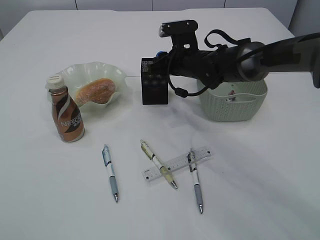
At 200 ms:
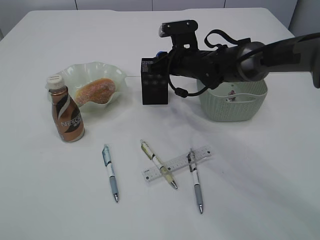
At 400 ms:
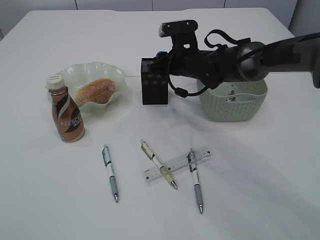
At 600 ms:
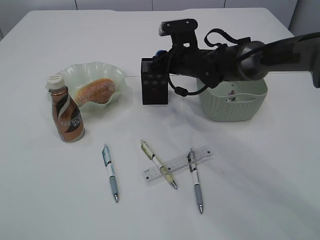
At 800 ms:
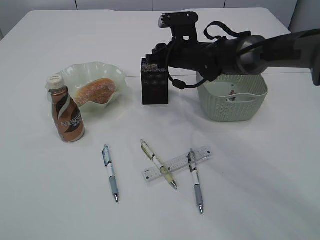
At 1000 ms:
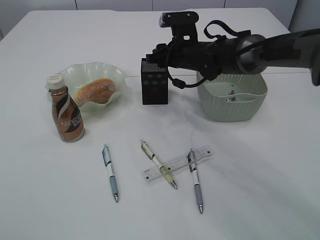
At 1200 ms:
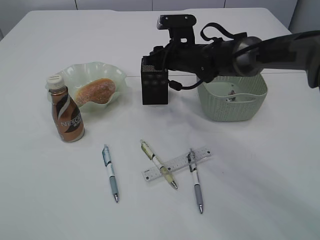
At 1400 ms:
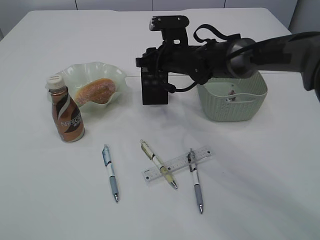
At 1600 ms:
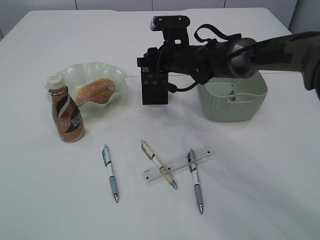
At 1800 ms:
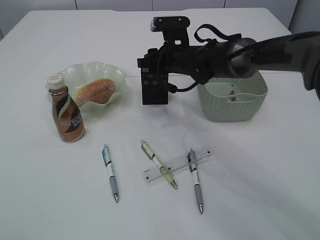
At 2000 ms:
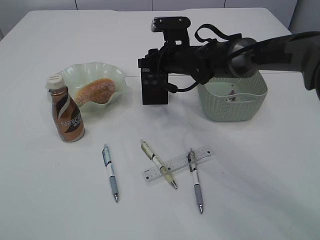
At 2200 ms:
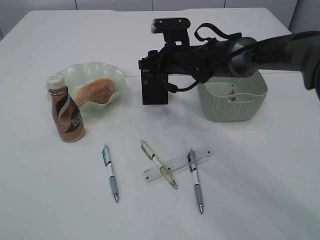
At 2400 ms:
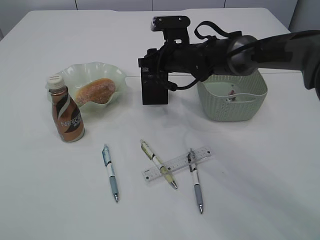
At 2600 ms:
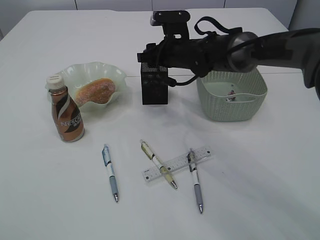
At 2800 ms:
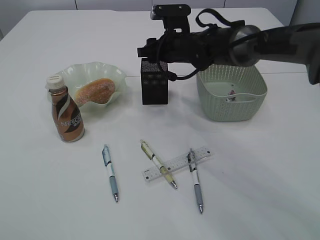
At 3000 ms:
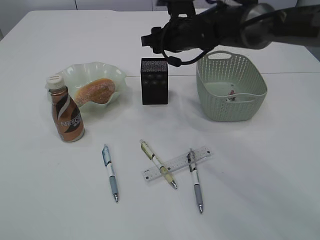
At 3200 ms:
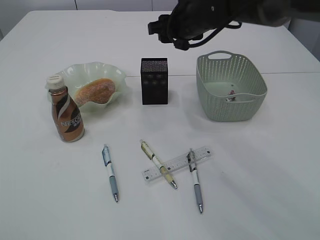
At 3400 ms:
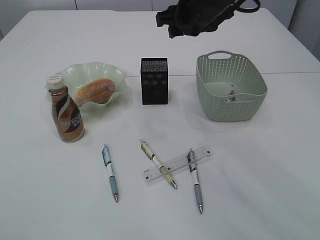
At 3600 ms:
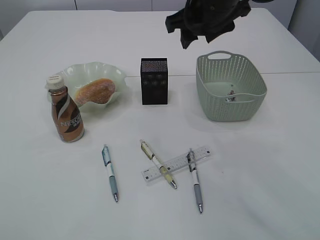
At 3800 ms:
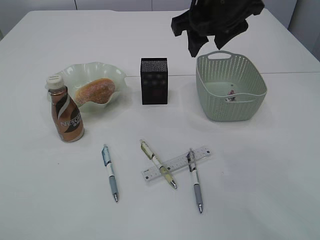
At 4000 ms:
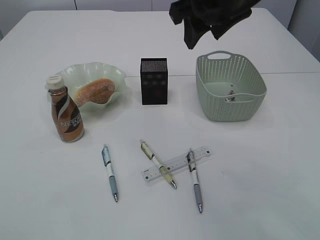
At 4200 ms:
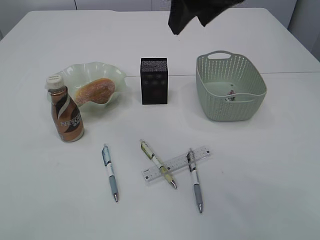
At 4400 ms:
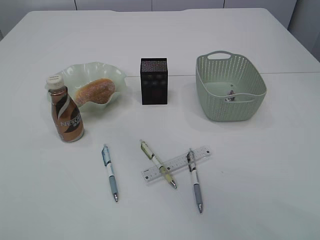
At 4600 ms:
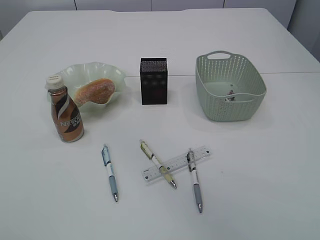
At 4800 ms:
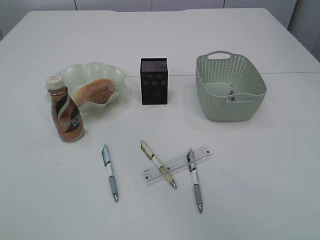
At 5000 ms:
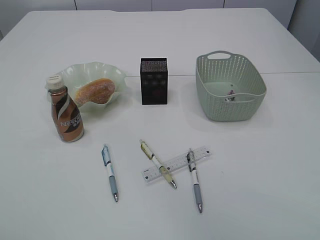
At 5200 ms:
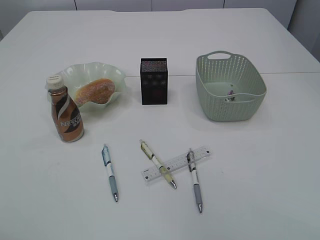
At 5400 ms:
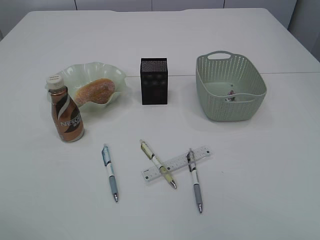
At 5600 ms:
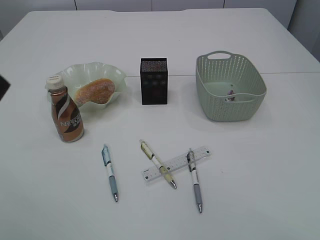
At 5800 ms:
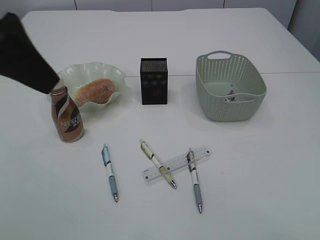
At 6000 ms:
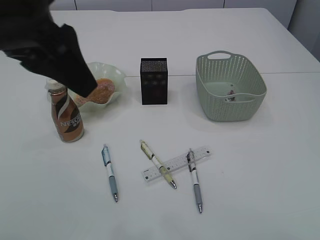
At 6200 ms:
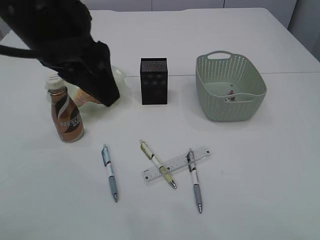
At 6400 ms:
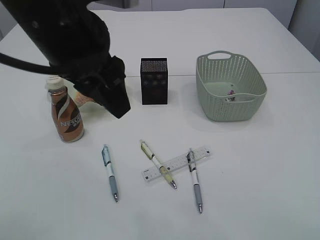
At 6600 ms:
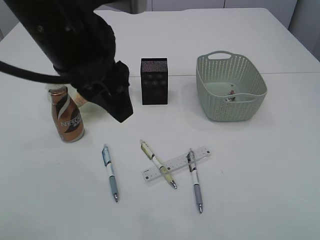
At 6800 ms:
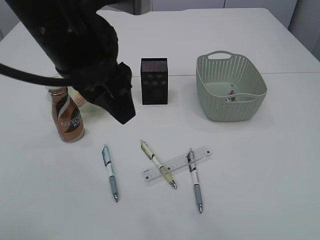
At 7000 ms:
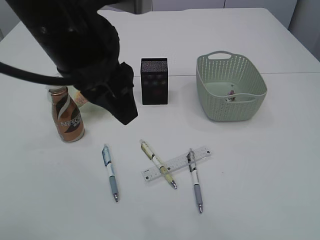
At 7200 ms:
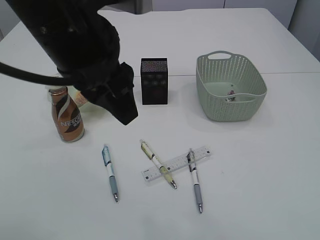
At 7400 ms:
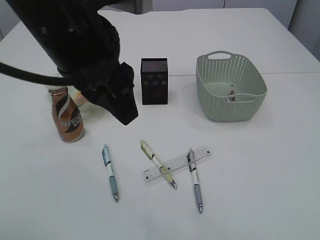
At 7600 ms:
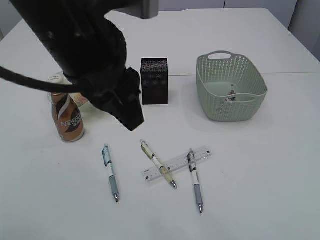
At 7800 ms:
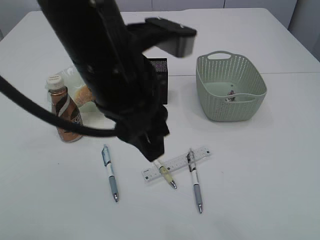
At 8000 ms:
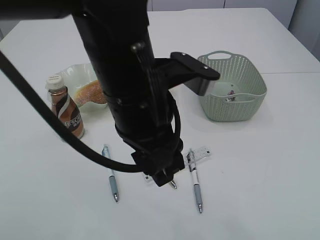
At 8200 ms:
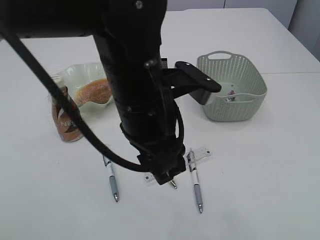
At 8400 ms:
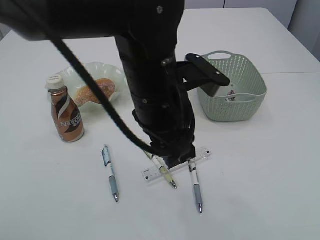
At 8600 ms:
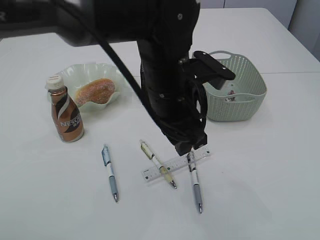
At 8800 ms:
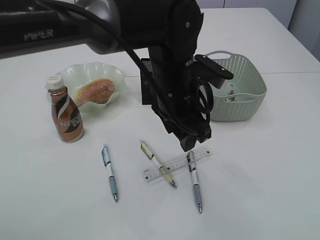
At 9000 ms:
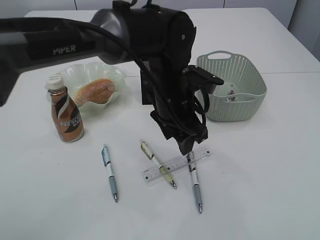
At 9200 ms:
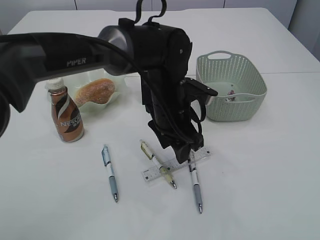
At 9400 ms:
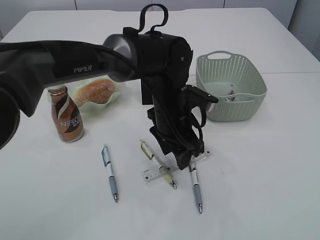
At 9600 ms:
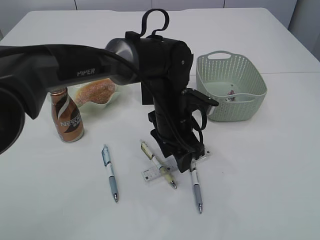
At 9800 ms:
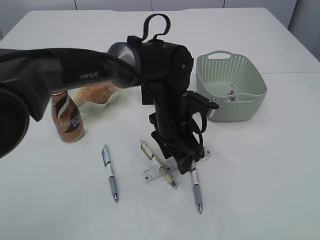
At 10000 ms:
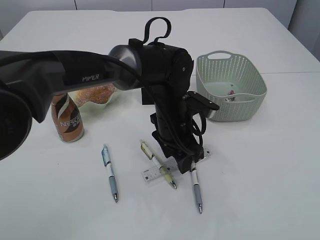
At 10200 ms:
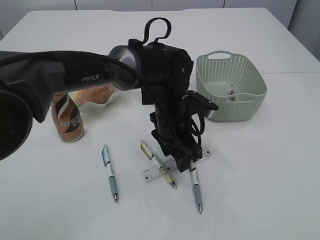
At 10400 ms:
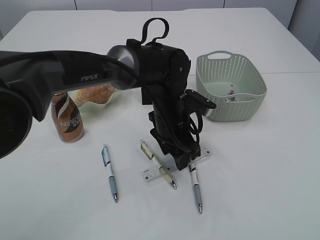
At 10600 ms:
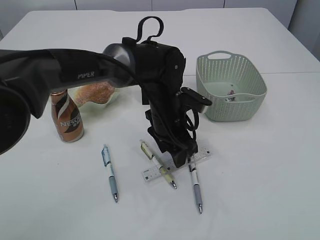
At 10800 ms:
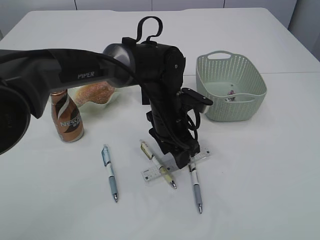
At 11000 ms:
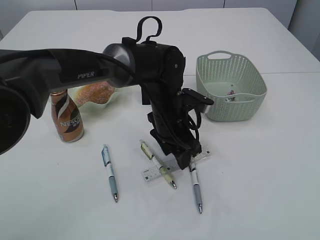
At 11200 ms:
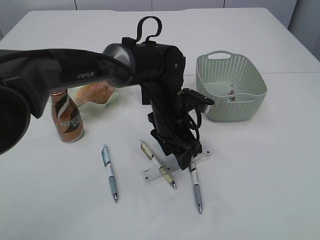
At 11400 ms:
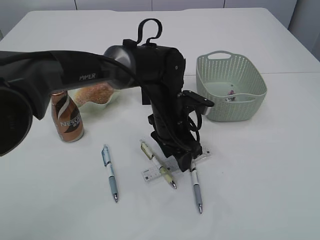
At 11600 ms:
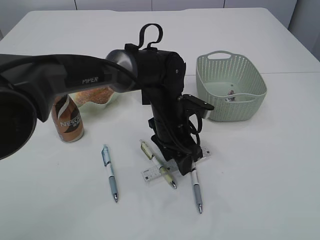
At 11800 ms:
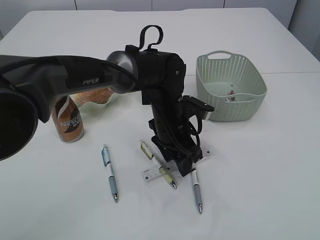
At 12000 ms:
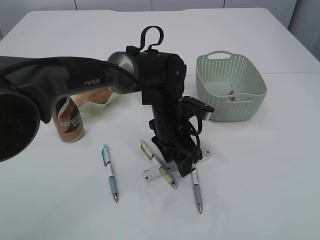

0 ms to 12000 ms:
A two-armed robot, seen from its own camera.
Step, 0 ms to 3200 ms: Place the blue pencil sharpener into the pen holder.
0 ms to 1600 ms: The grippers make only small movements.
1600 ms to 3000 ms: The right gripper heads upward, covering roughly 5 cm.
3000 ms to 4400 ms: The right gripper heads upward and backward, covering some 30 cm.
4400 ms to 6000 ms: The left gripper goes roughly 15 cm to the right and forward.
6000 ms to 7600 ms: The right gripper goes about 10 cm backward and to the right. The left gripper goes roughly 5 cm to the right.
7600 ms to 9000 ms: The left gripper goes about 20 cm downward, to the right and forward.
9000 ms to 10400 ms: The left gripper moves downward, about 5 cm.
10400 ms to 12000 ms: There are only small adjustments of the grippers.

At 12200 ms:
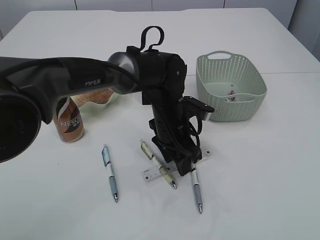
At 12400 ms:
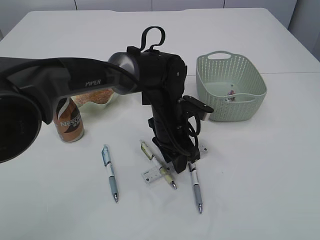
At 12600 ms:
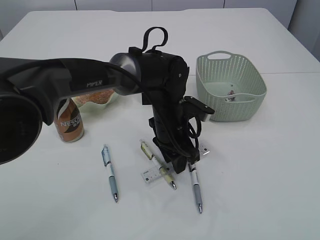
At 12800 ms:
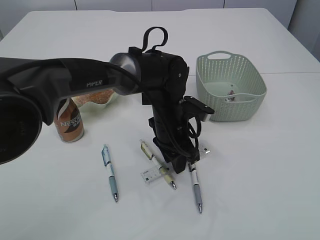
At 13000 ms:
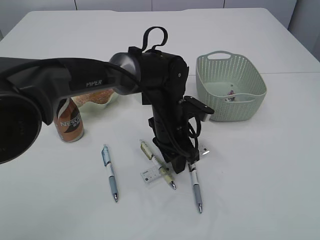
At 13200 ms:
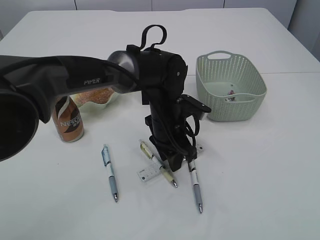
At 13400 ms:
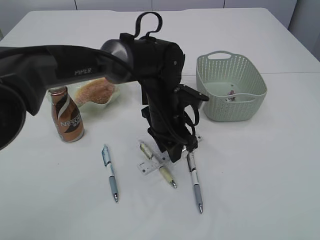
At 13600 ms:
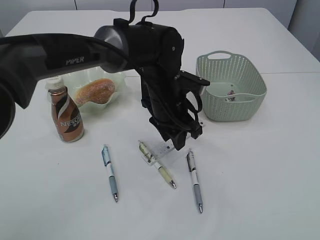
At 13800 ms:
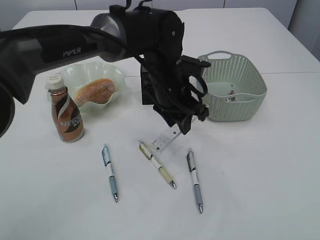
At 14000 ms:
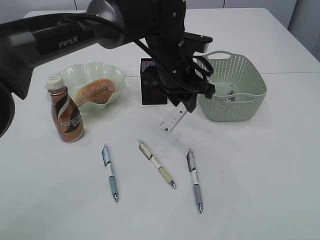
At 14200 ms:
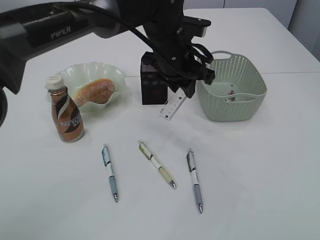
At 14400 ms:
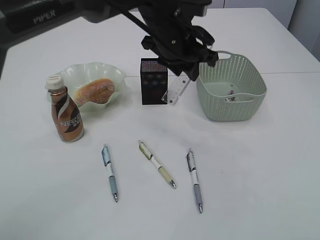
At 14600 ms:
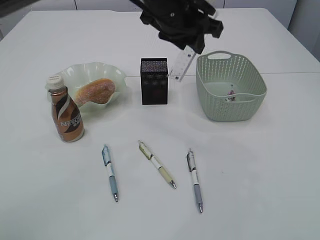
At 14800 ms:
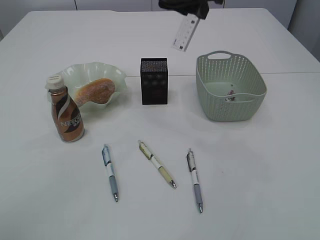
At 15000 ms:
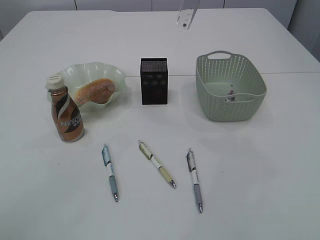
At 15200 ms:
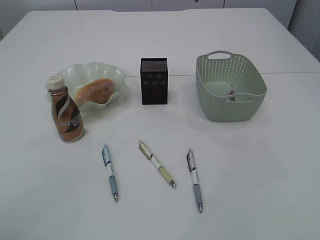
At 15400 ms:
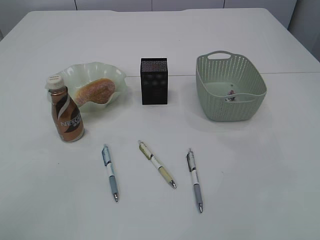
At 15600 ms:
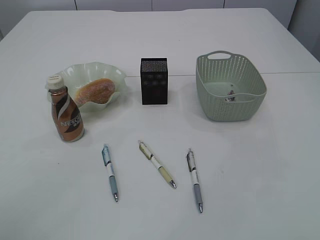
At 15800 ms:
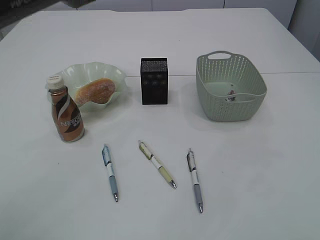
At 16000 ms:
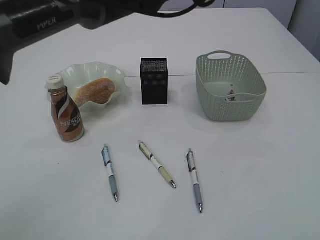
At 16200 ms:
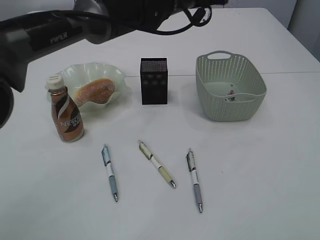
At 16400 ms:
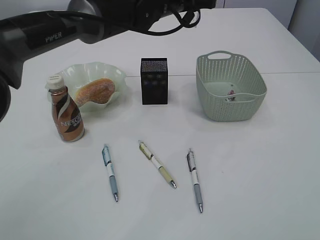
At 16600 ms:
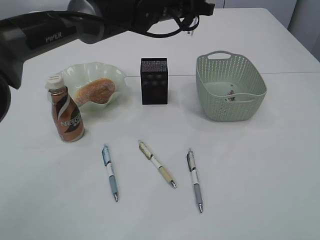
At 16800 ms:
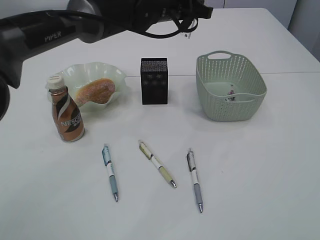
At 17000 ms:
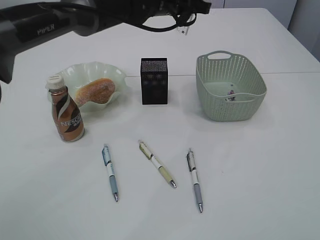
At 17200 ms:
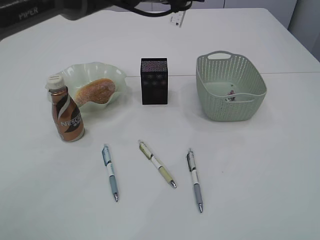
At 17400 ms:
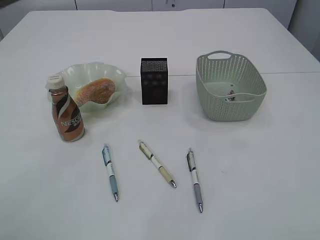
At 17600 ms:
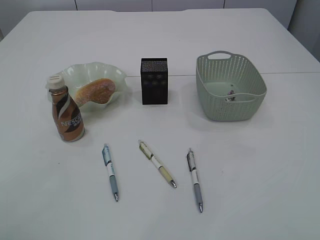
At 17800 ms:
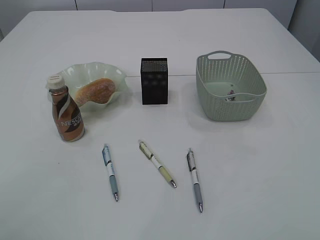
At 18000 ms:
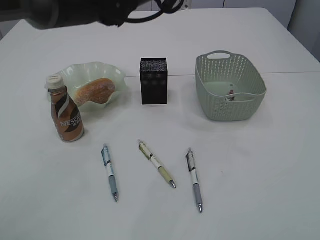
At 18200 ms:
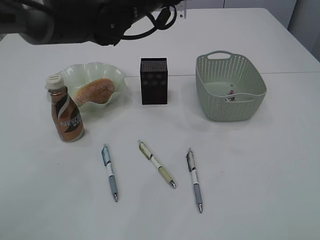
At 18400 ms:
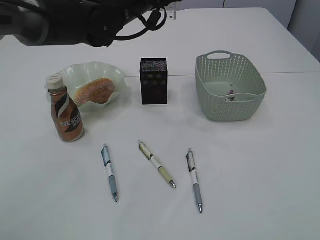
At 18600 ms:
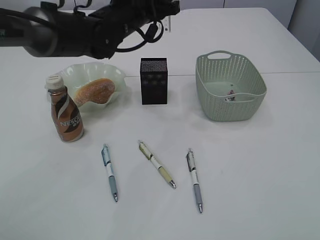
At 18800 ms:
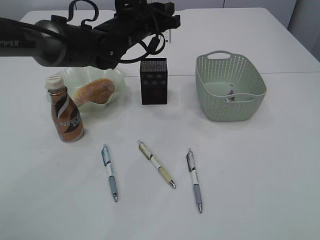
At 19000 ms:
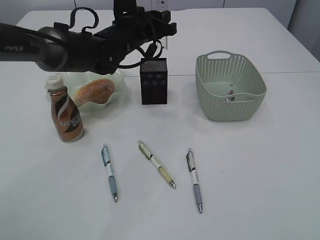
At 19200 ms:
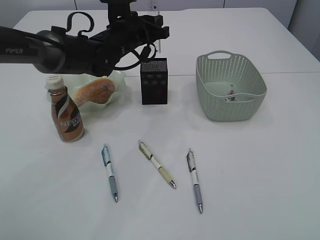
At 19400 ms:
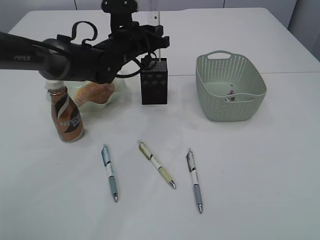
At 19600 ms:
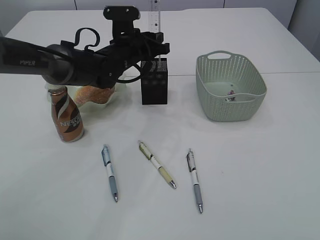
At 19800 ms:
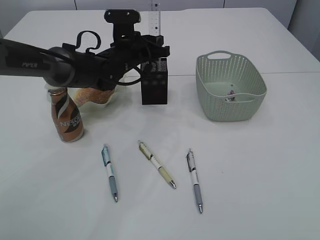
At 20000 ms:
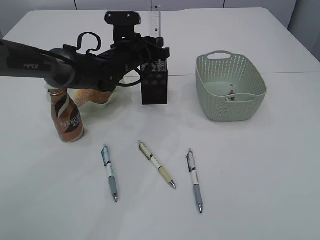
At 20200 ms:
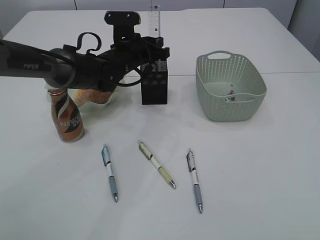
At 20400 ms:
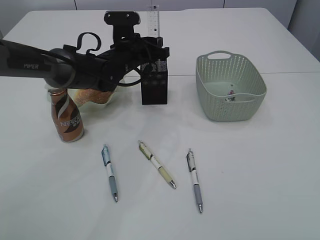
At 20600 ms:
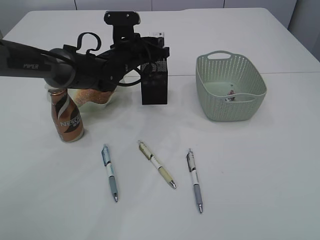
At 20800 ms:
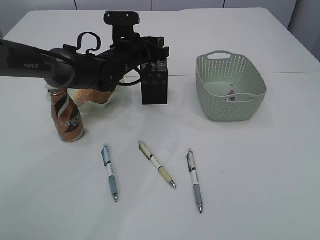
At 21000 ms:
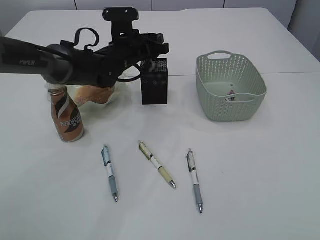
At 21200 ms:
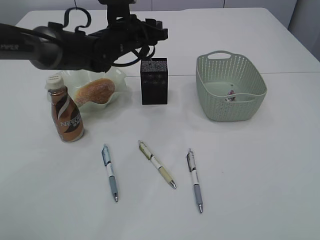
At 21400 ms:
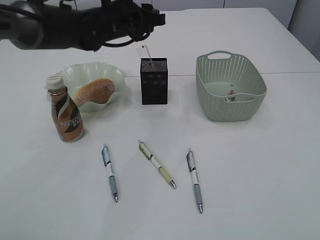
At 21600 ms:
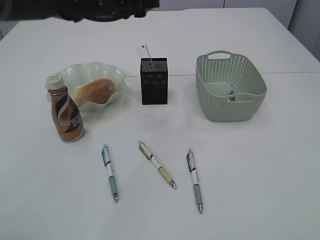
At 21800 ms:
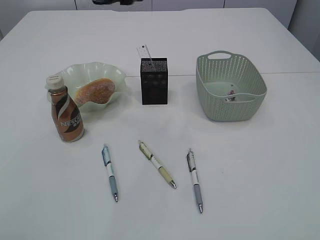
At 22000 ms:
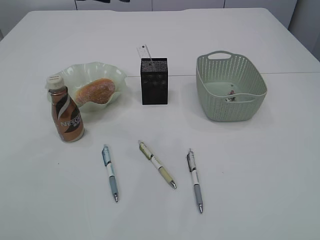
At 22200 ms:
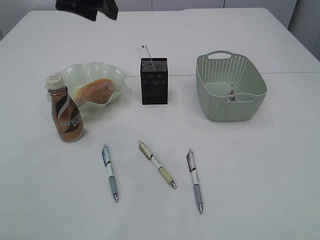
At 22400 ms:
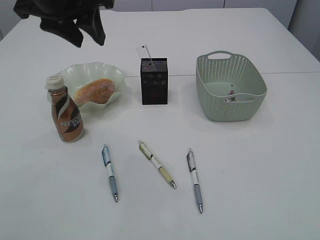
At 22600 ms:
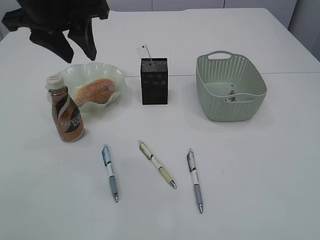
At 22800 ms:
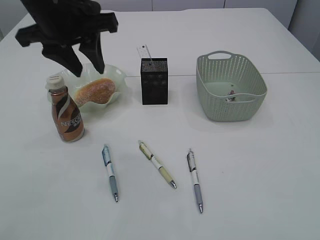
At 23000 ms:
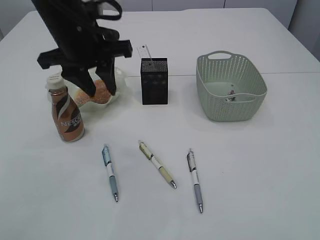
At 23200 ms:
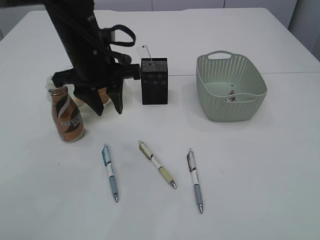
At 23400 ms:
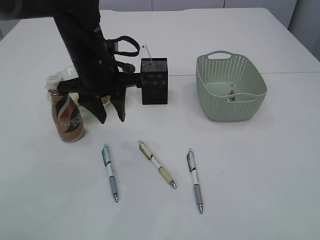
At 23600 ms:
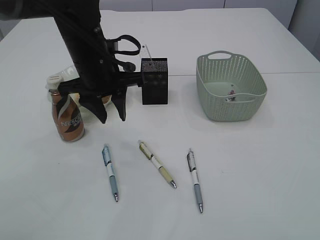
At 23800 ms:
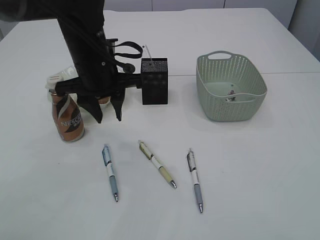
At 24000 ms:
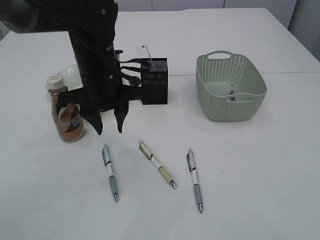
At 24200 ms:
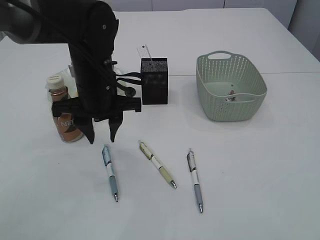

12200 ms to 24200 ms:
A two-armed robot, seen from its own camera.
Step, 13800 ms to 21000 ms: Place the ruler into the pen holder.
12200 ms to 13800 ms: The left gripper shifts about 5 cm upward, and closes.
13800 ms to 15200 ms: The left gripper is displaced upward by some 20 cm.
15200 ms to 16600 ms: The left gripper is displaced downward and forward by some 15 cm.
16600 ms to 18200 ms: The left gripper travels upward and back again, about 10 cm each way.
18200 ms to 19800 ms: The left gripper is displaced downward by approximately 10 cm.
19800 ms to 21200 ms: There are only small adjustments of the grippers.
21200 ms to 22600 ms: The left gripper goes roughly 20 cm upward, backward and to the left.
22600 ms to 24200 ms: The left gripper is displaced downward by some 15 cm.
